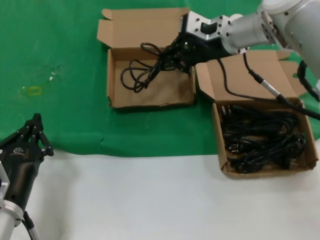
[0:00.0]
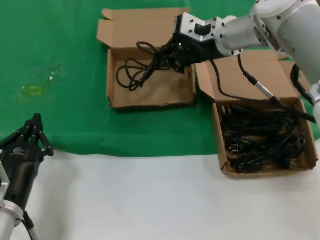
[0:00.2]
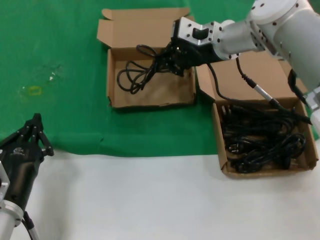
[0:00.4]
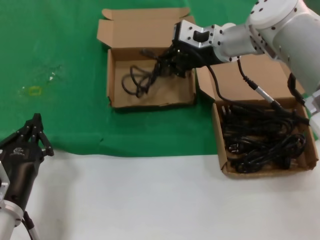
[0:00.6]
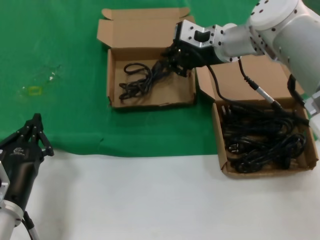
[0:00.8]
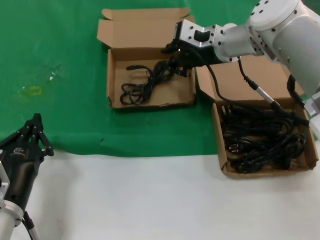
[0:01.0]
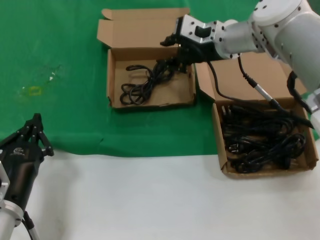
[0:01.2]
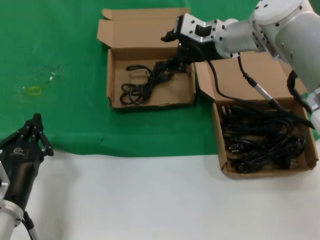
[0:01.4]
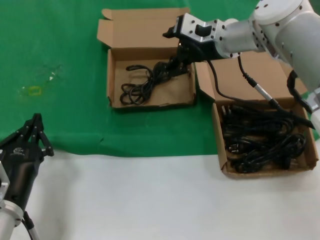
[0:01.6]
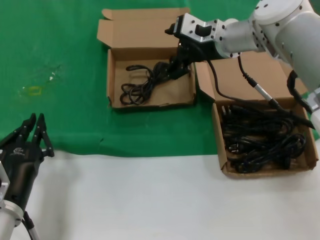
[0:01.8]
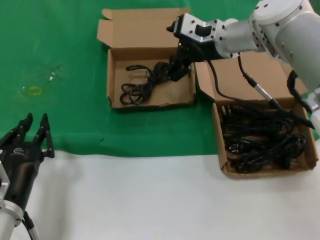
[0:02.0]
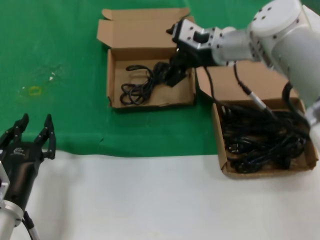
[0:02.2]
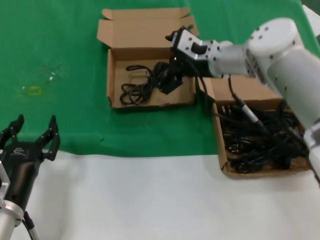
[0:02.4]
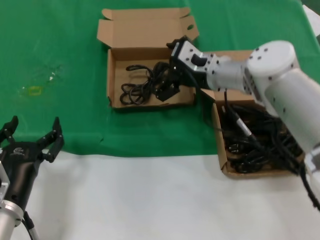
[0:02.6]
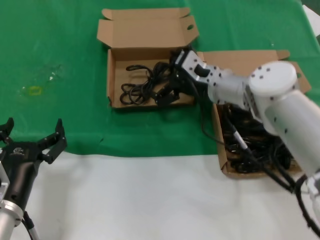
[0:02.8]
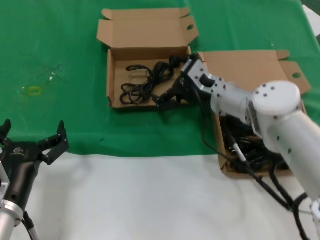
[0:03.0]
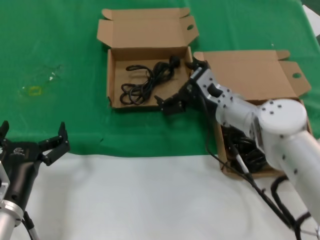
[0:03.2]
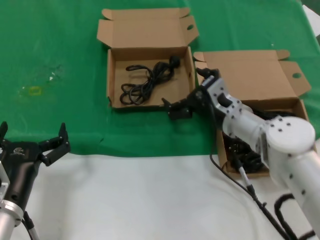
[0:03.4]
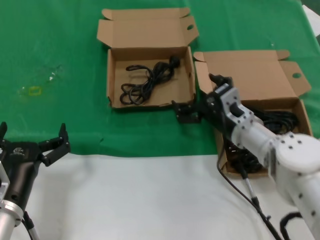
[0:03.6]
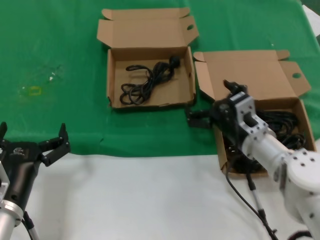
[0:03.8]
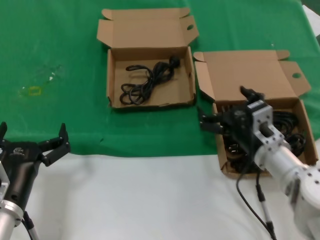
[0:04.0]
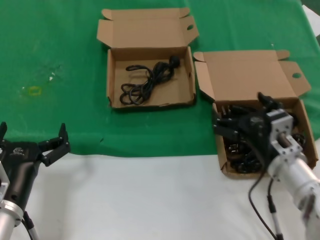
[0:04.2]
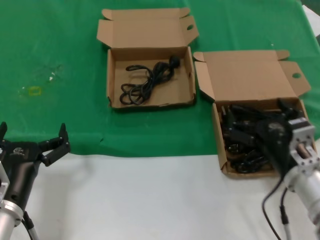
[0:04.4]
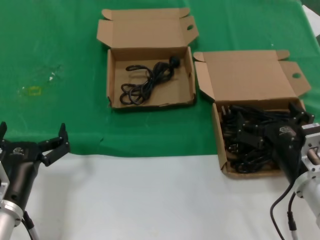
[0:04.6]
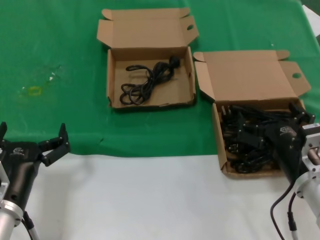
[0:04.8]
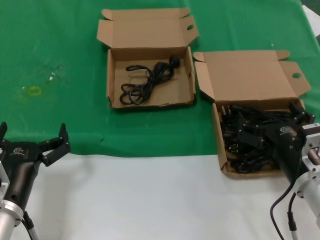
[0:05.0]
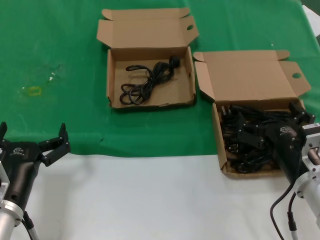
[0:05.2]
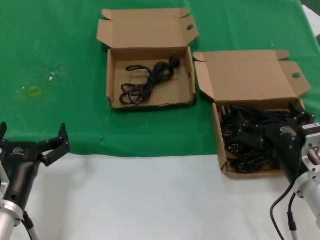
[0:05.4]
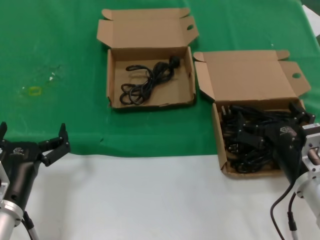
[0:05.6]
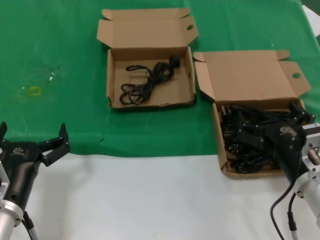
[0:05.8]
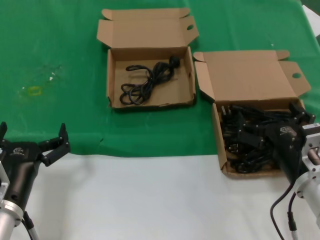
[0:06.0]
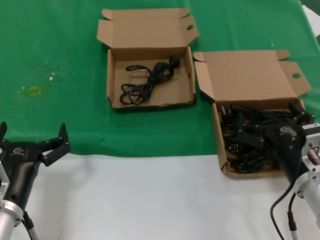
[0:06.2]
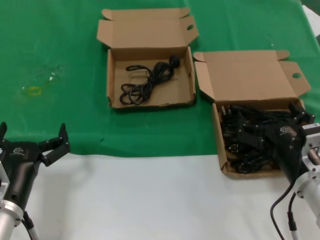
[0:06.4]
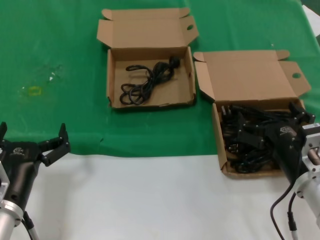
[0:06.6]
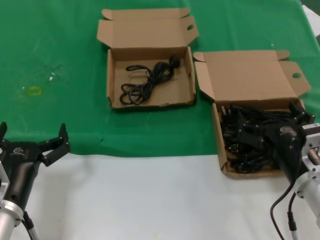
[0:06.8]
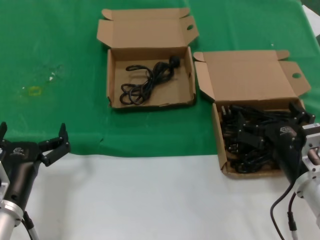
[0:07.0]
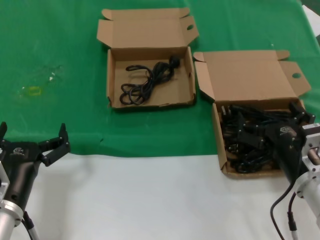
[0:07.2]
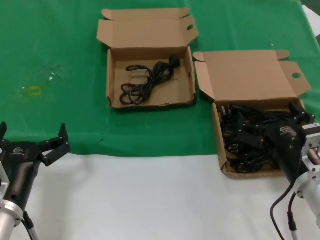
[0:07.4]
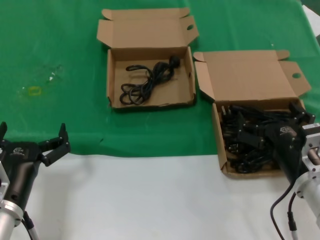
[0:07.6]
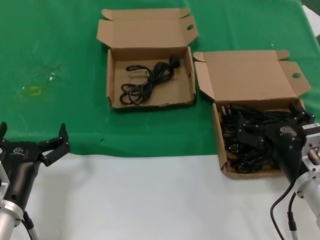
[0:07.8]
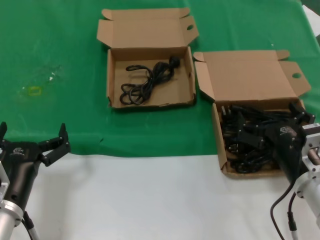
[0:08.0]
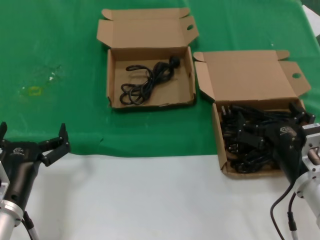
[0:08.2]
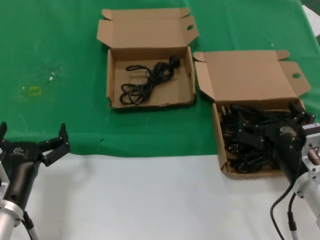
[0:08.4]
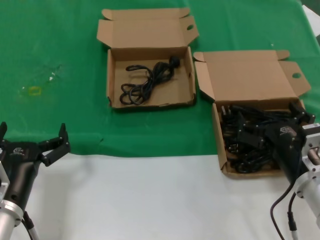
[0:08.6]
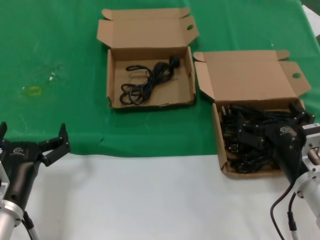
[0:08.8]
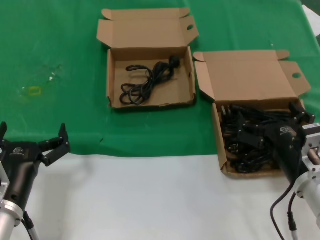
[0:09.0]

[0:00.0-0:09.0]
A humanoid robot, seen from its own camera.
Task of the whole recording: take the parts from the box containing them and put them into an empty box.
0:00.0 to 0:01.6: There are only small adjustments of the hands.
0:01.6 to 0:03.0: The right hand moves downward, some 15 cm.
0:03.0 to 0:04.4: The right hand is displaced backward, to the right and downward by approximately 20 cm.
0:04.4 to 0:06.0: There are only small adjustments of the hands.
0:06.0 to 0:09.0: Both hands stay about where they are.
